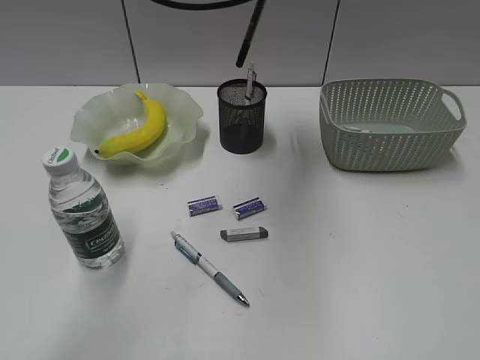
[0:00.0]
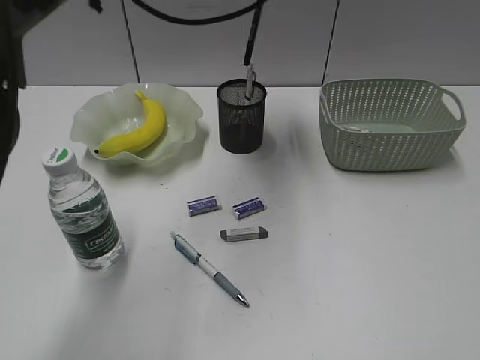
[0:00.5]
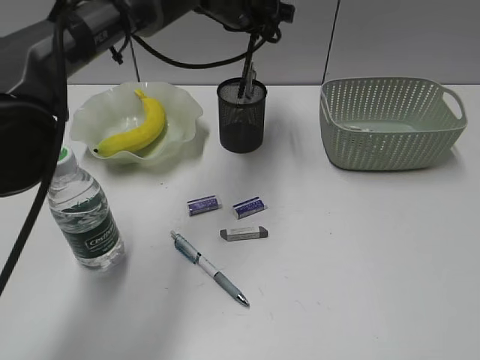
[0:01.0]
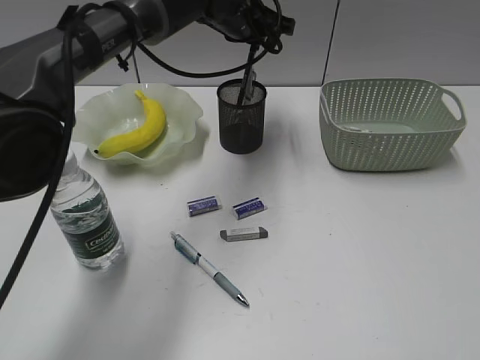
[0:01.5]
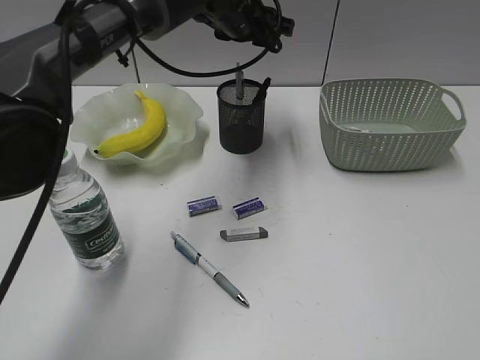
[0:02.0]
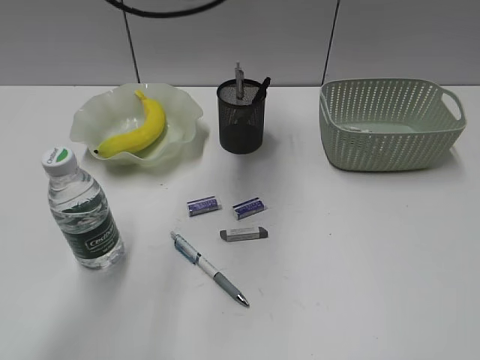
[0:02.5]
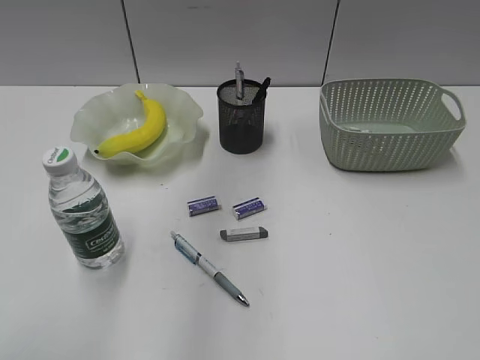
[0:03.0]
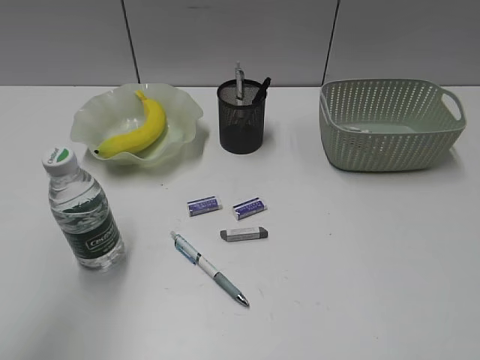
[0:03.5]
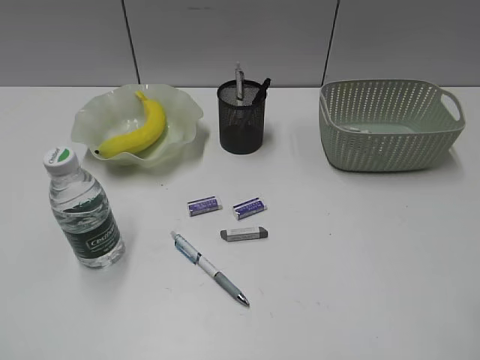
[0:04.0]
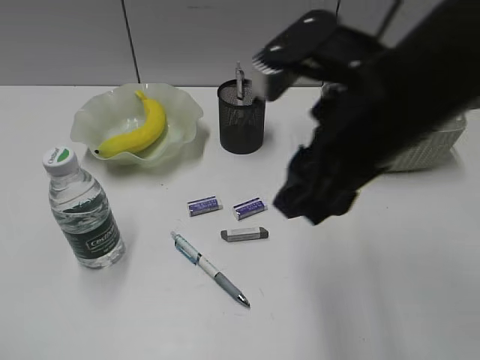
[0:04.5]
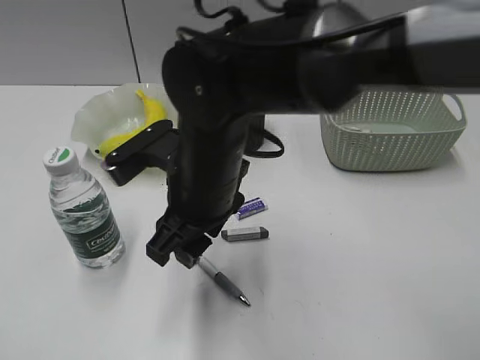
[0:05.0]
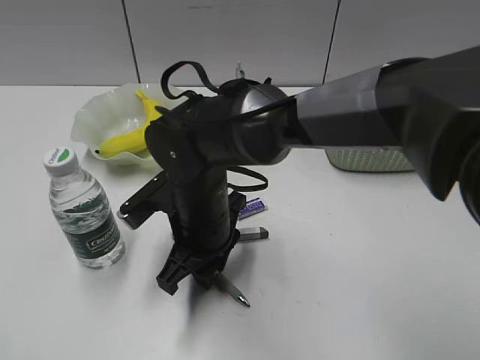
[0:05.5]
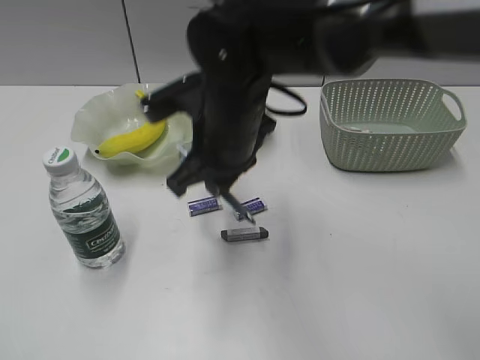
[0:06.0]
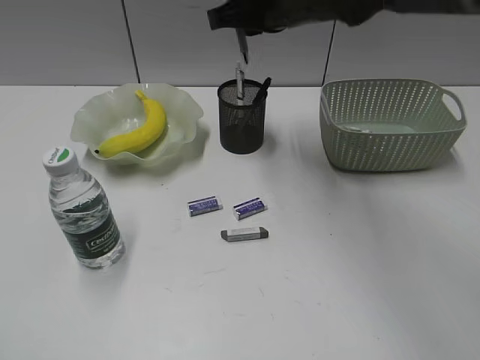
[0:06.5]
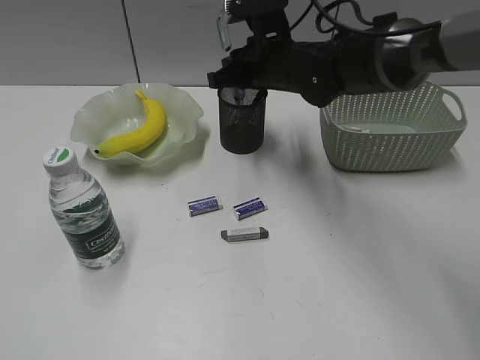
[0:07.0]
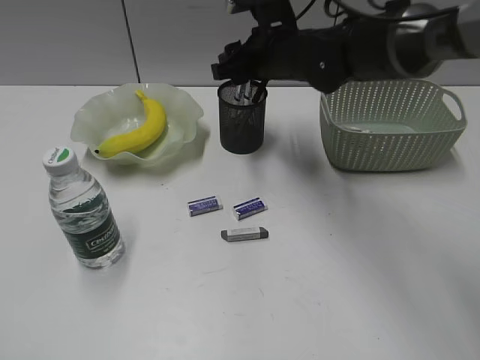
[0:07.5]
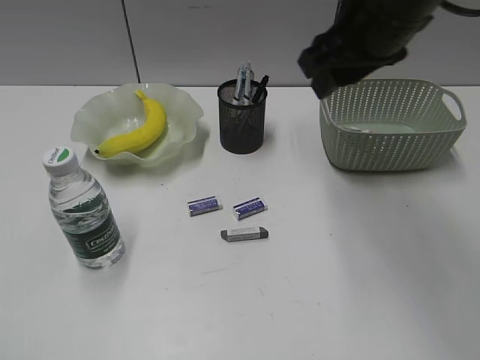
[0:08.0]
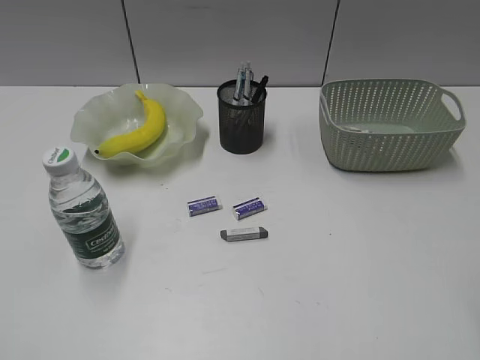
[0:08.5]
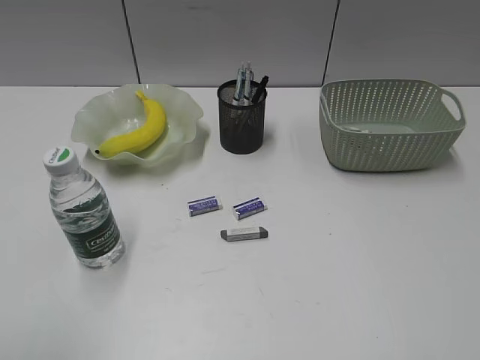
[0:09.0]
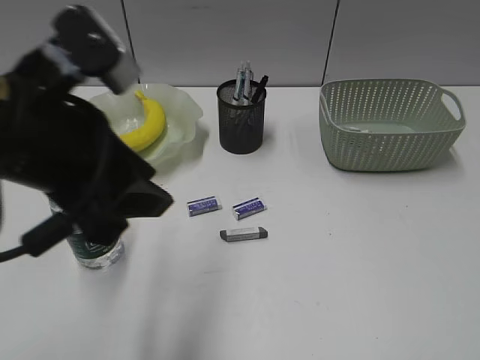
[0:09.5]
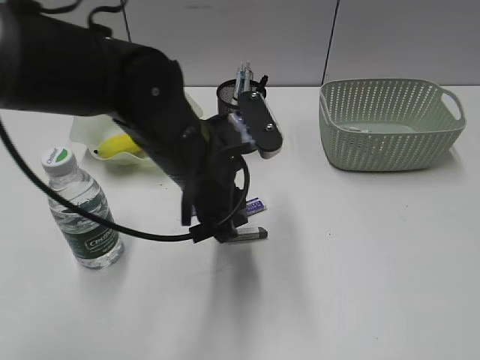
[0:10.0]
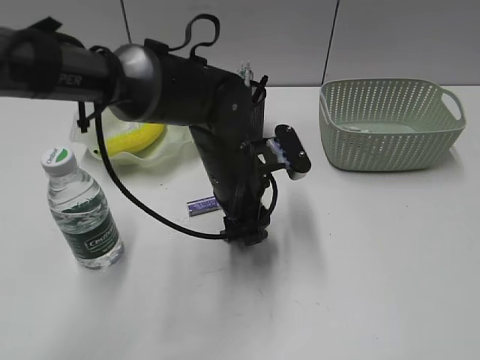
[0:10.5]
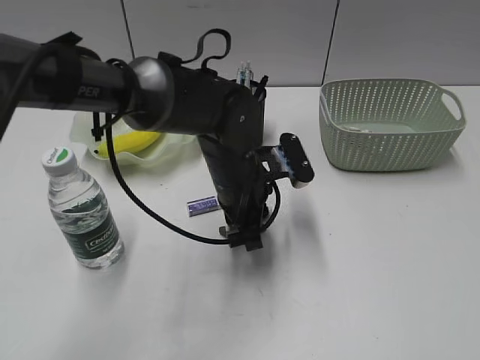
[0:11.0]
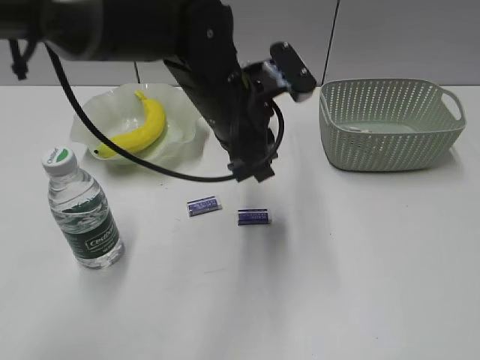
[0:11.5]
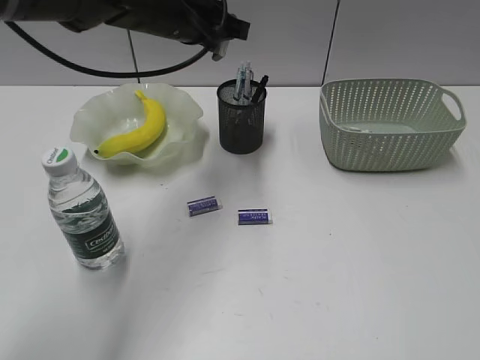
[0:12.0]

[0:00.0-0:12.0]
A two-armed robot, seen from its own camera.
Step, 0:00.0 to 0:01.5: Place the black pen in pen holder with left gripper.
Step, 0:02.0 to 0:05.5: Grasp the blue pen with right gripper.
Step, 0:06.0 to 0:07.0: Place the blue pen in pen holder with right gripper.
Step, 0:07.5 to 0:11.0: Grasp the eraser with left gripper.
0:00.0 to 0:02.0: The left gripper goes about 15 cm downward and forward, and opens its fingers.
0:02.0 to 0:04.0: The right gripper shifts approximately 10 cm forward and to the left; the left gripper goes about 60 cm backward and to the left.
0:04.0 to 0:06.0: The right gripper shifts some 40 cm to the left, forward and downward, and closes up.
0:06.0 to 0:08.0: The right gripper moves to the right and upward, approximately 20 cm, goes forward and returns, roughly 15 cm each way, and opens up.
0:08.0 to 0:10.0: The left gripper is displaced to the right and forward by roughly 40 cm. The right gripper goes about 40 cm backward and to the right.
0:10.0 to 0:12.0: The left gripper moves forward and upward, roughly 15 cm, and closes.

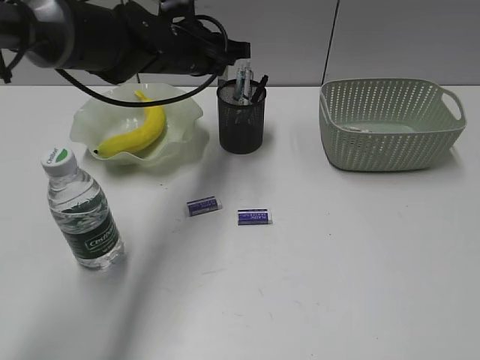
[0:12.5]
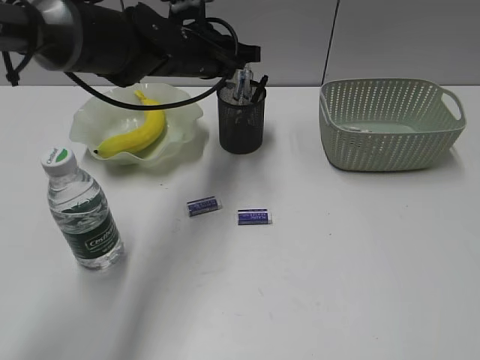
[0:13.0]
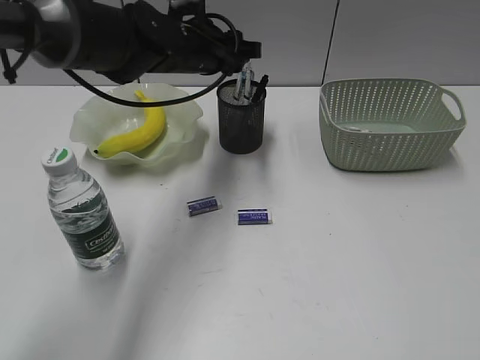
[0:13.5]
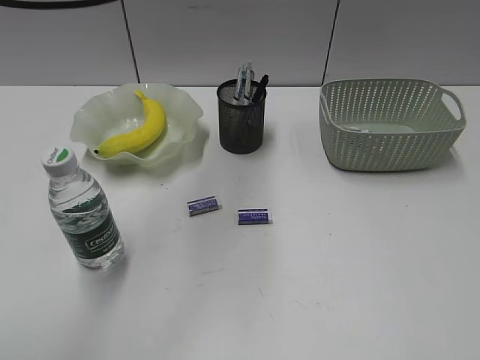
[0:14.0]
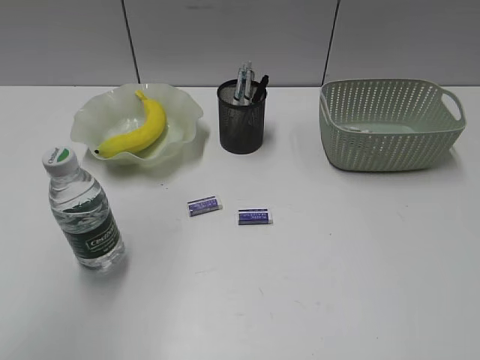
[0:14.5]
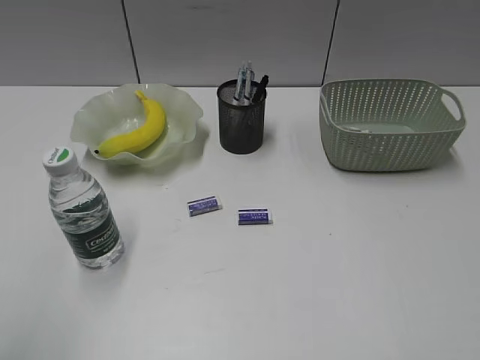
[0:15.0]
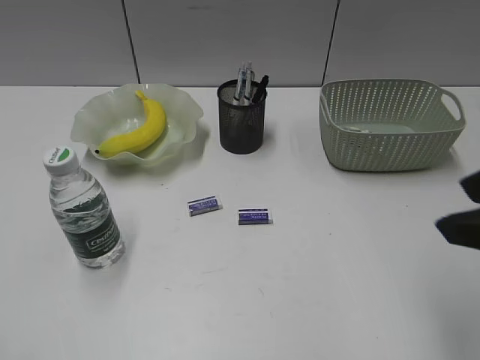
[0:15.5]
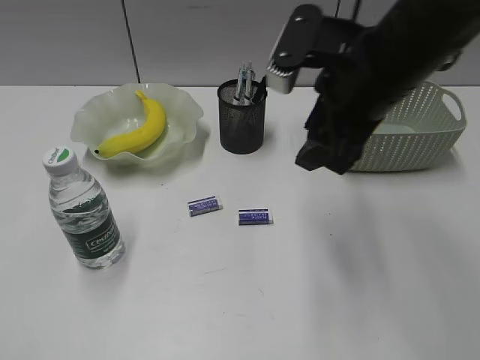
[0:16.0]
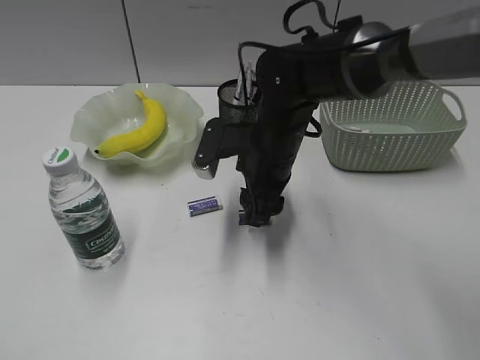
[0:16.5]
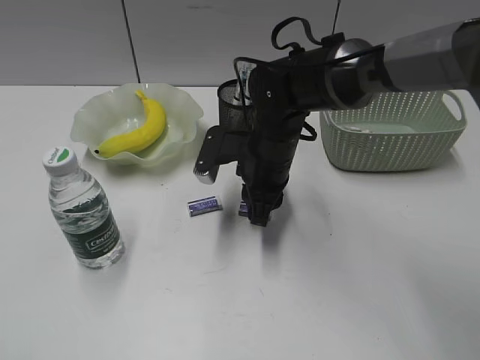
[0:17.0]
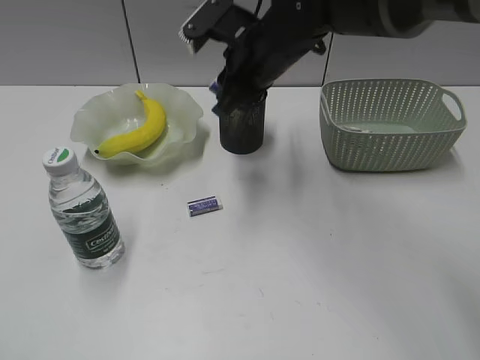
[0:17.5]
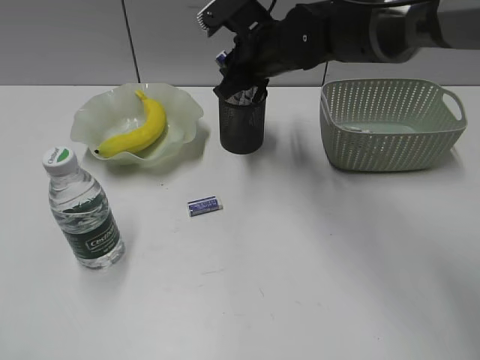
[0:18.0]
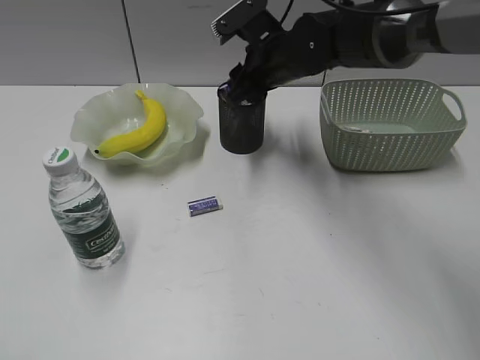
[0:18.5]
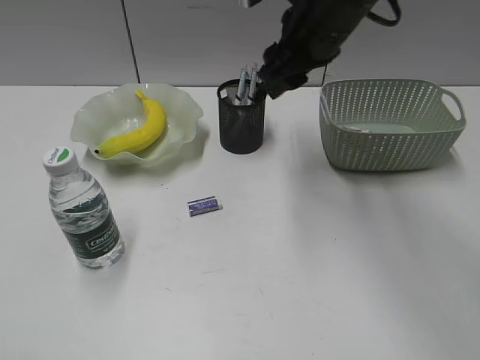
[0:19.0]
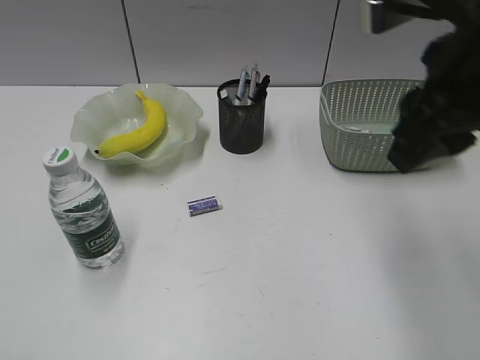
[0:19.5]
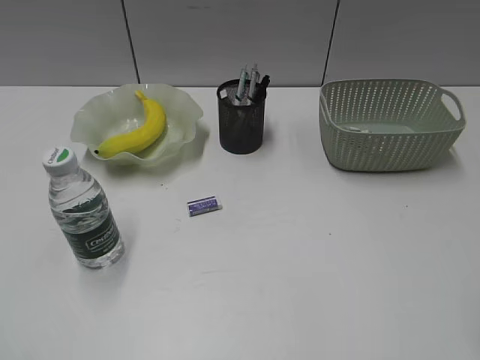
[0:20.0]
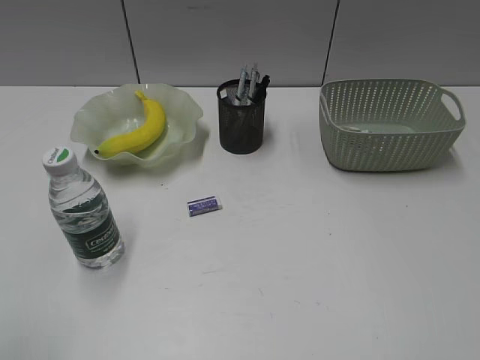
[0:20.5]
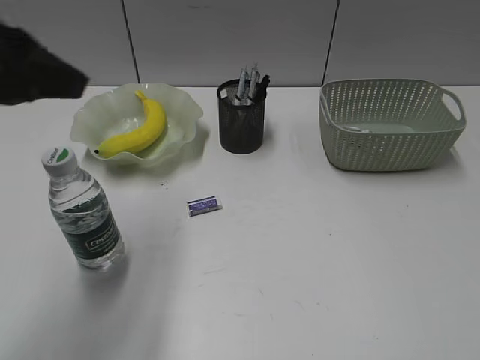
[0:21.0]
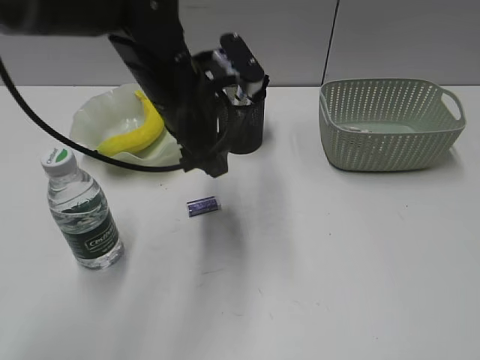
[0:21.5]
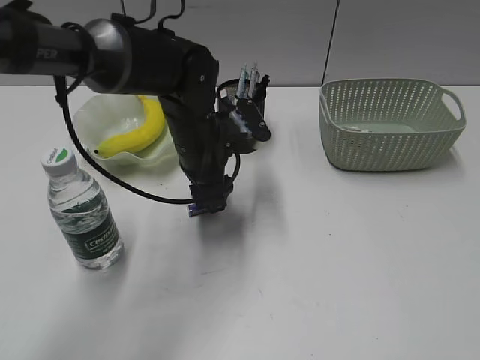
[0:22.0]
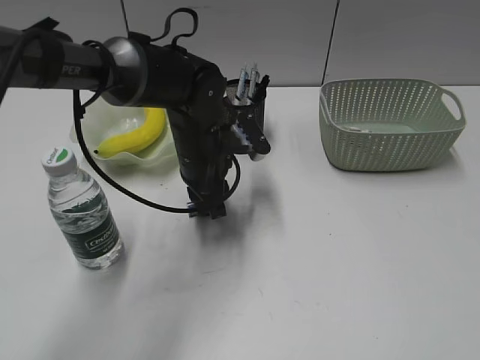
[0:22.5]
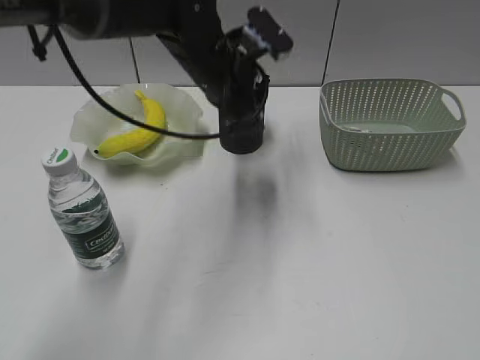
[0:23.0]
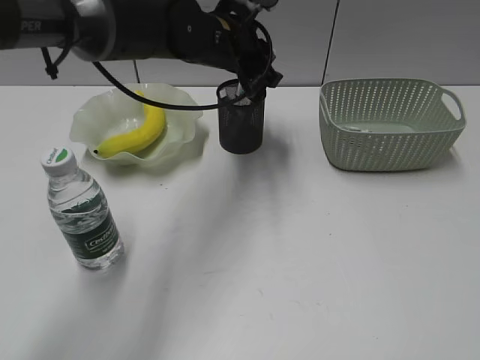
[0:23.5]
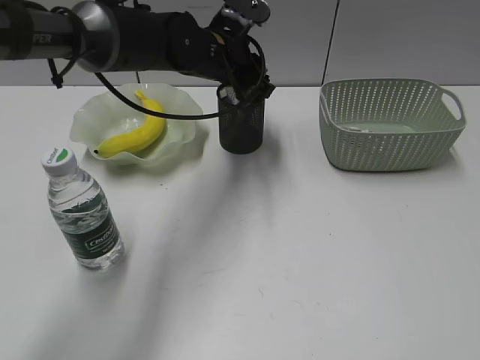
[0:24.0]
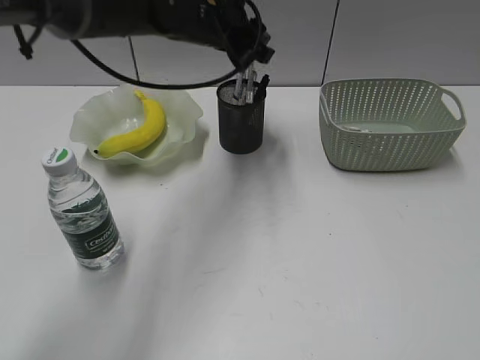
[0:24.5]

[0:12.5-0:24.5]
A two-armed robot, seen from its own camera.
Step, 0:13.5 to 0:17.0: Grasp the eraser with right gripper.
Step, 0:17.5 to 0:18.5: Place the eraser in pen holder with right gripper.
Step, 0:19.0 to 0:22.5: Grasp the eraser with left gripper.
Step, 0:23.0 to 0:24.0: Place the eraser in pen holder with left gripper.
0:12.5 to 0:14.5: The left gripper moves upward, backward and to the left, some 40 cm, and opens up.
0:14.5 to 0:16.5: The left gripper travels backward, downward and to the left by about 30 cm. The right gripper moves forward, to the left and downward, some 50 cm.
0:16.5 to 0:18.5: The right gripper goes approximately 10 cm forward and upward, and closes, then opens again.
0:18.5 to 0:20.5: The right gripper moves backward and to the right, approximately 50 cm.
0:20.5 to 0:22.5: The left gripper goes about 50 cm forward, to the right and downward.
0:22.5 to 0:24.5: The left gripper travels upward and forward by about 15 cm.

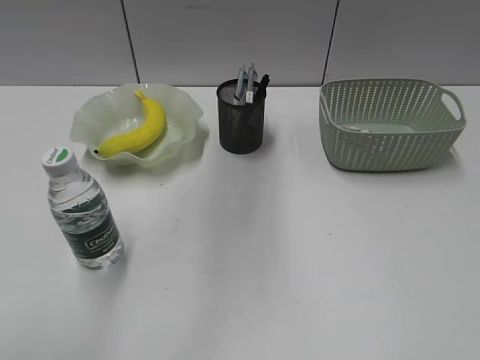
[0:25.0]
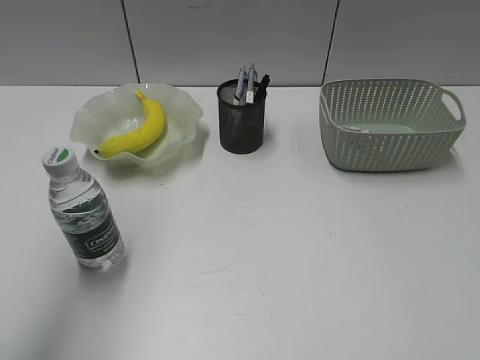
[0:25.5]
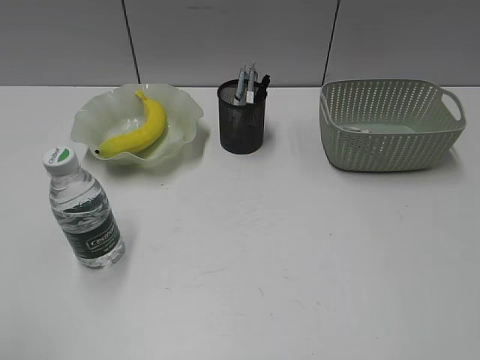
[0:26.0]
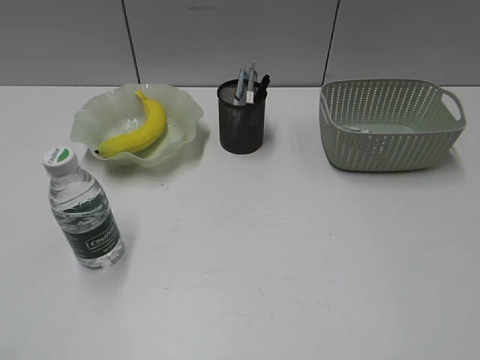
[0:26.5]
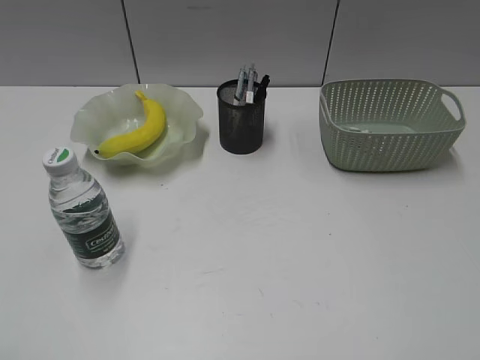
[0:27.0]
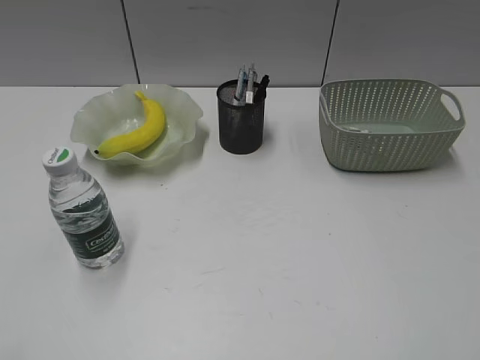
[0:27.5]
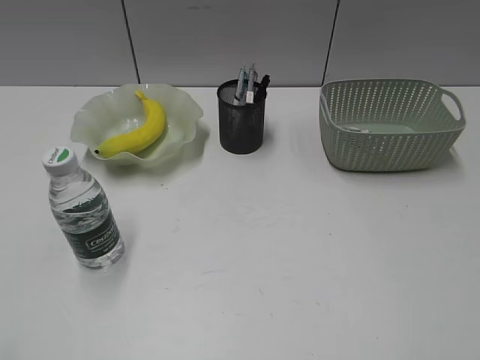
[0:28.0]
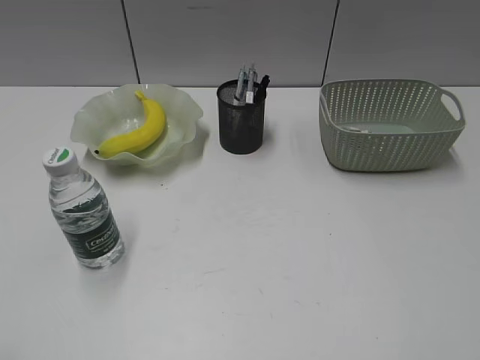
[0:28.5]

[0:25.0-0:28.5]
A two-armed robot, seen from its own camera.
0:25.0 to 0:27.0: The left gripper heads backward and to the left, covering some 40 cm.
